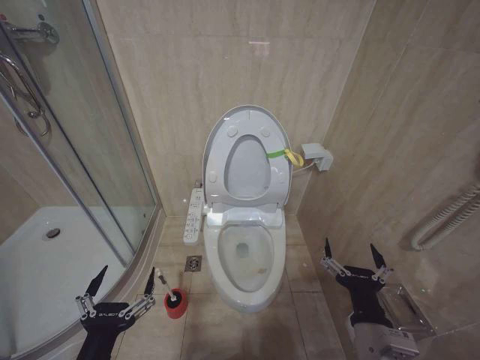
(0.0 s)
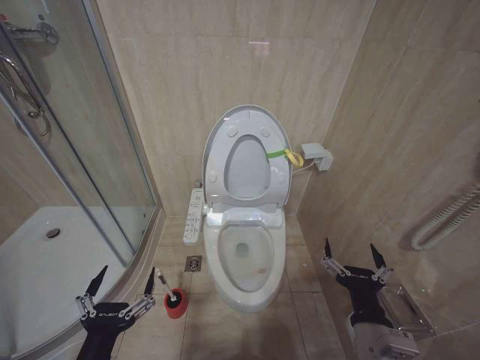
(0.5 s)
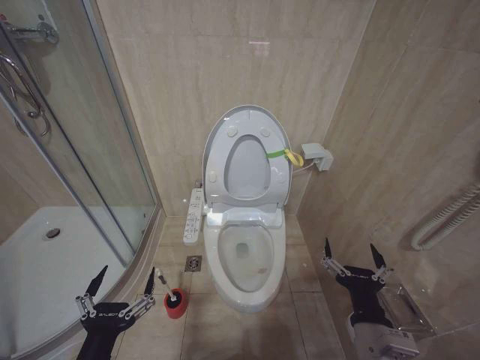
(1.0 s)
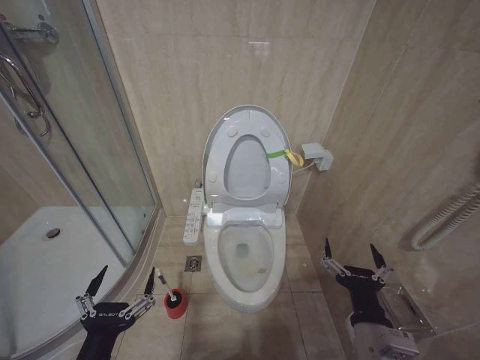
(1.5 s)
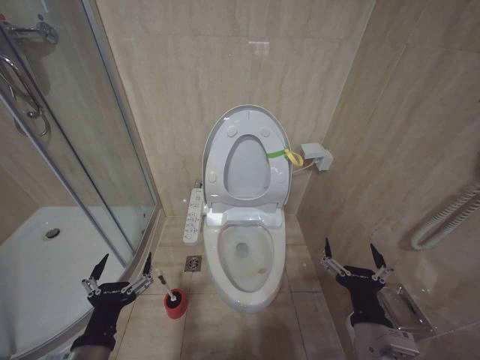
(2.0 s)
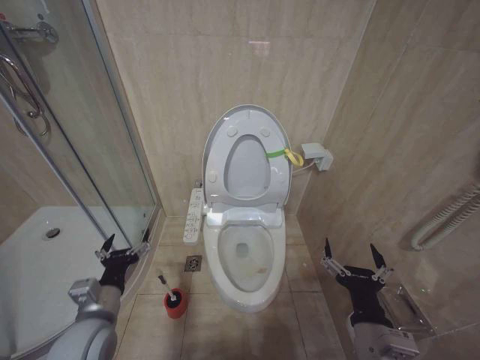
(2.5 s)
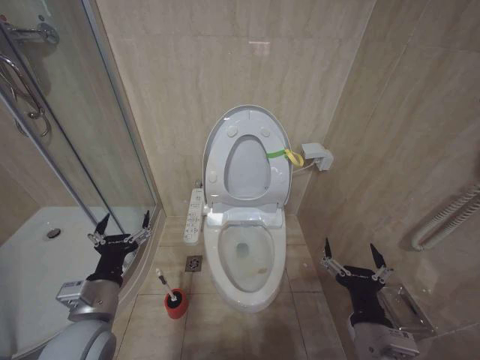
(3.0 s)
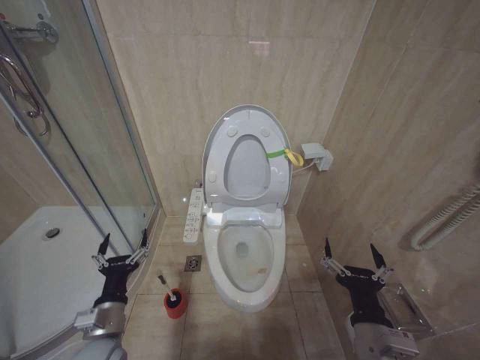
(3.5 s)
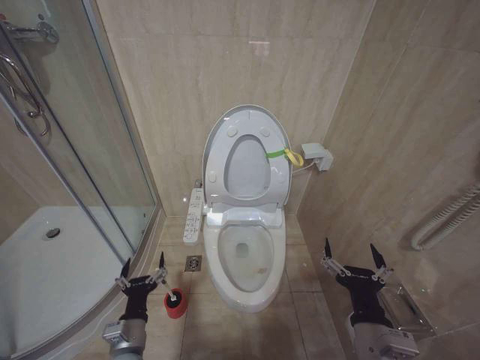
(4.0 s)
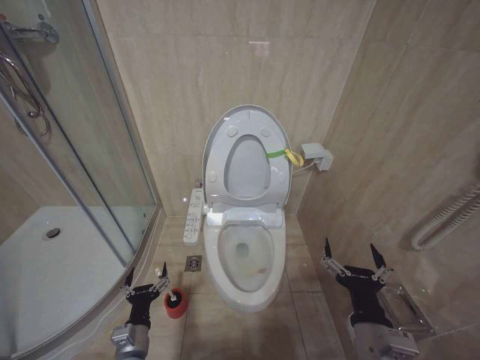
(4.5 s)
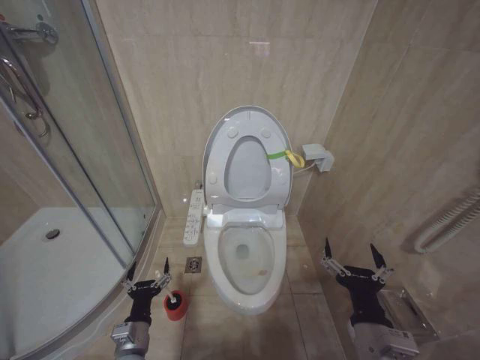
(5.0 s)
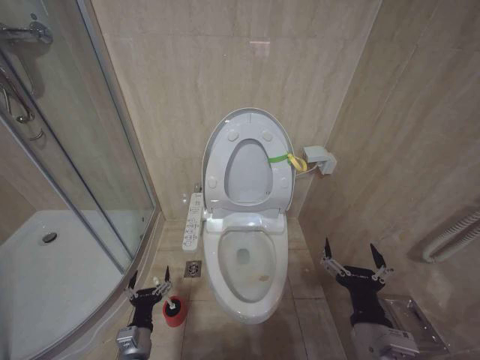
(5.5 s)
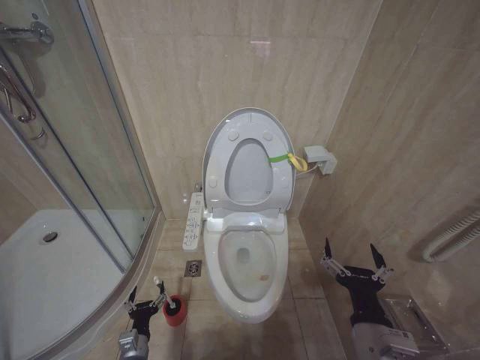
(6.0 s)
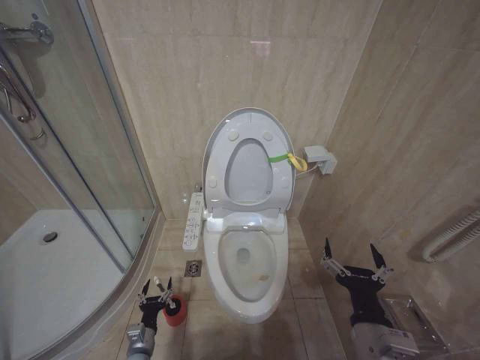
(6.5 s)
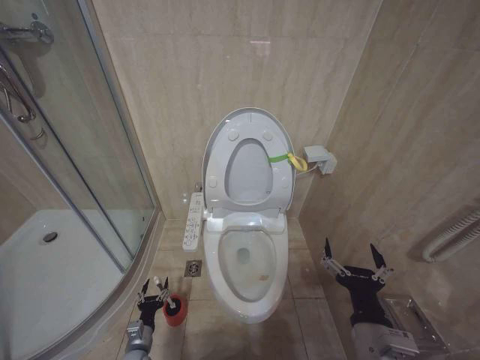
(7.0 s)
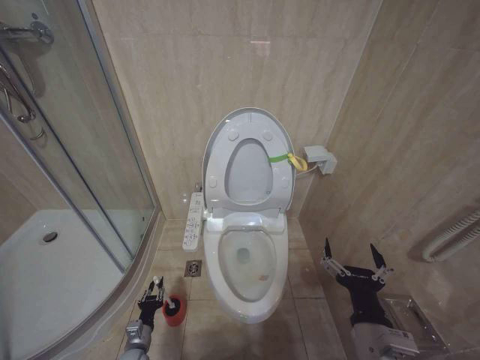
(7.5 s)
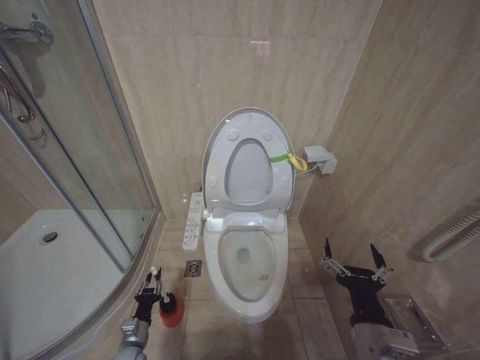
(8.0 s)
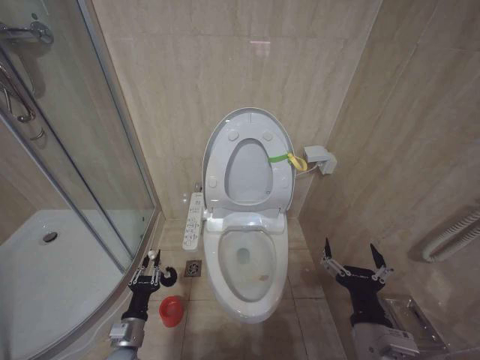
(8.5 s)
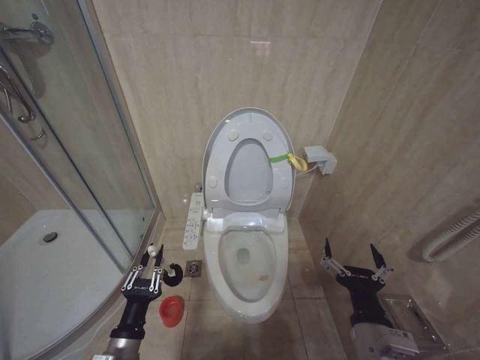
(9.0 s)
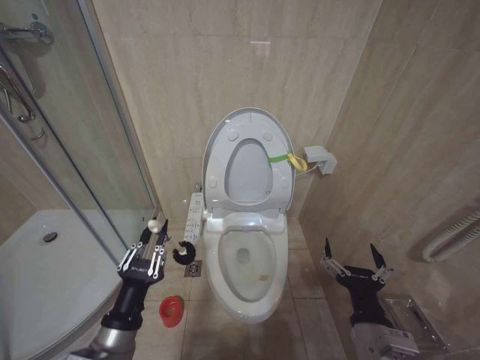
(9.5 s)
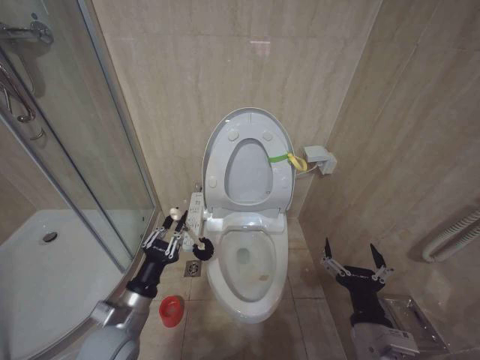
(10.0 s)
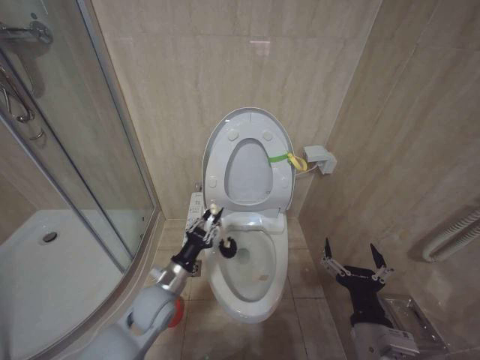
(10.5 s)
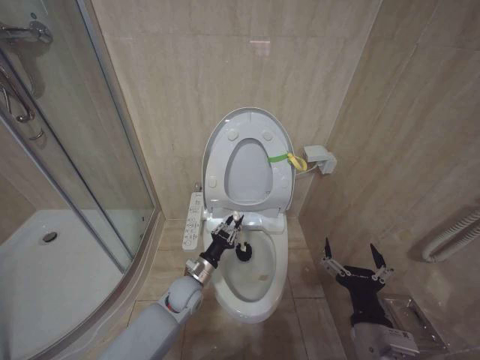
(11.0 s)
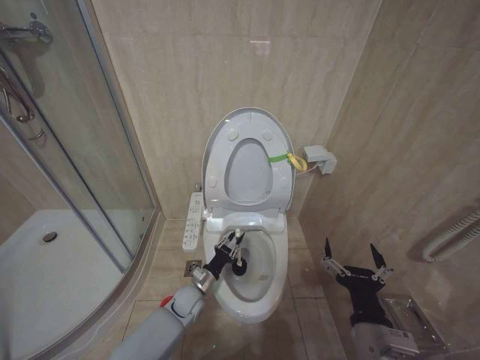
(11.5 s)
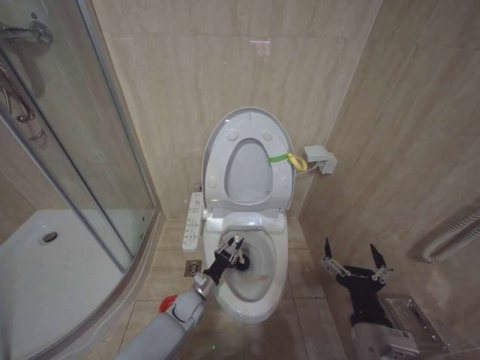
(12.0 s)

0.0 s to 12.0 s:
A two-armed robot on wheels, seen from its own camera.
Task of the whole recording: Open the toilet lid, clean the toilet bowl with a toilet brush, close the toilet lid, and flush.
0.0 to 2.0 s: The grippers move only a little.
2.0 to 4.0 s: The left gripper is displaced downward and forward by roughly 15 cm.
4.0 to 6.0 s: The left gripper travels downward by roughly 15 cm.
6.0 to 8.0 s: The left gripper changes place by some 5 cm, and closes its fingers.
8.0 to 10.0 s: The left gripper heads upward, covering about 25 cm.
10.0 to 12.0 s: The left gripper is displaced downward, forward and to the right by approximately 30 cm.

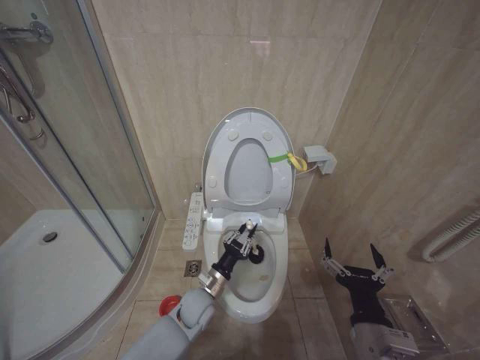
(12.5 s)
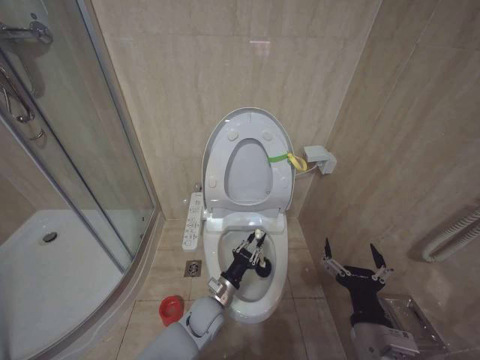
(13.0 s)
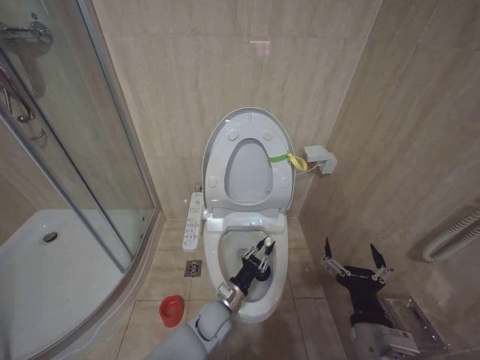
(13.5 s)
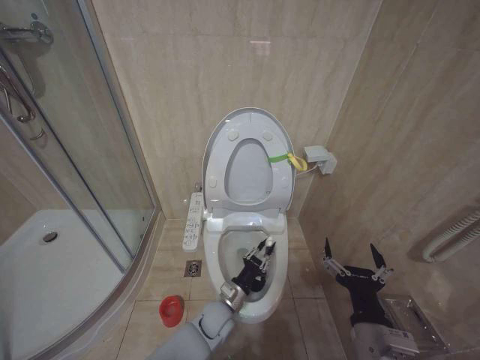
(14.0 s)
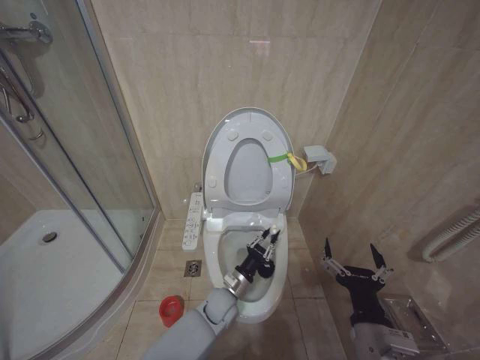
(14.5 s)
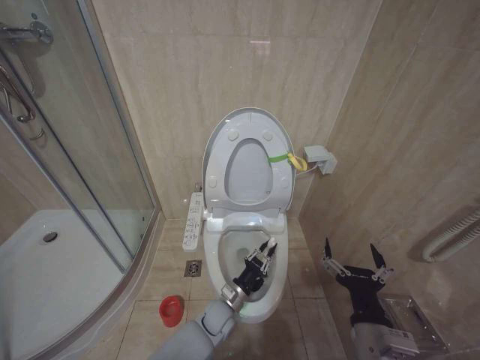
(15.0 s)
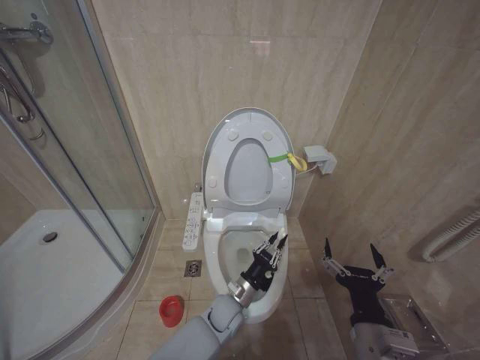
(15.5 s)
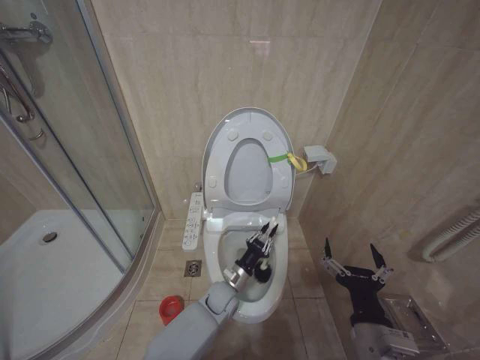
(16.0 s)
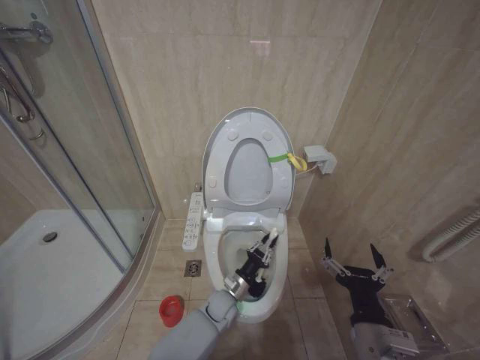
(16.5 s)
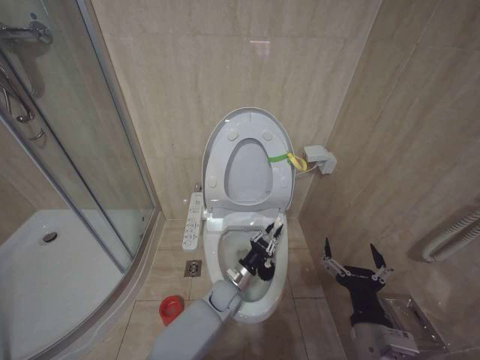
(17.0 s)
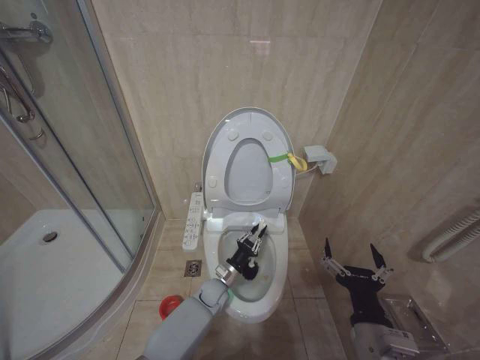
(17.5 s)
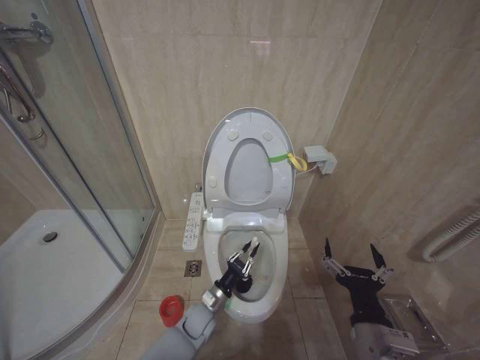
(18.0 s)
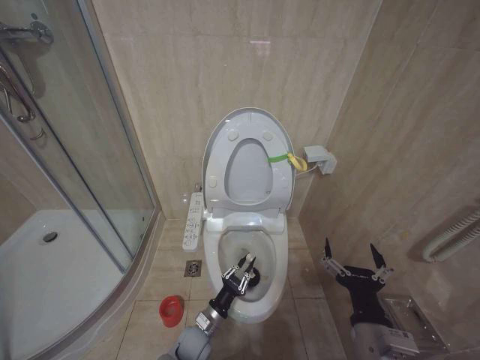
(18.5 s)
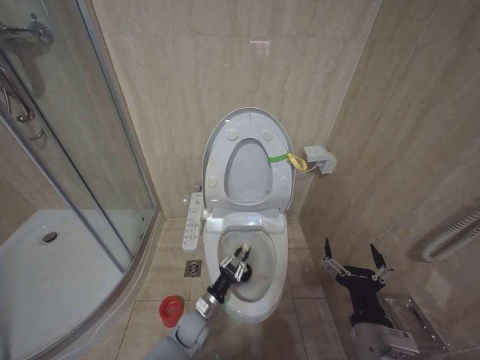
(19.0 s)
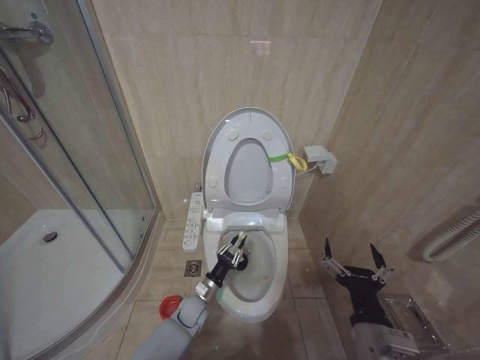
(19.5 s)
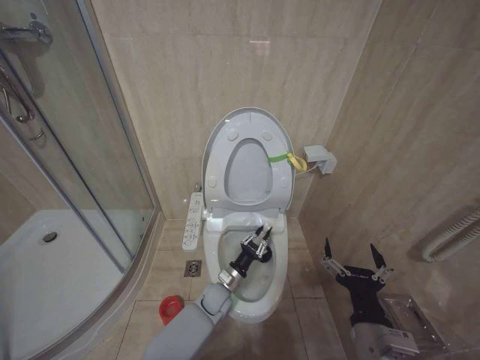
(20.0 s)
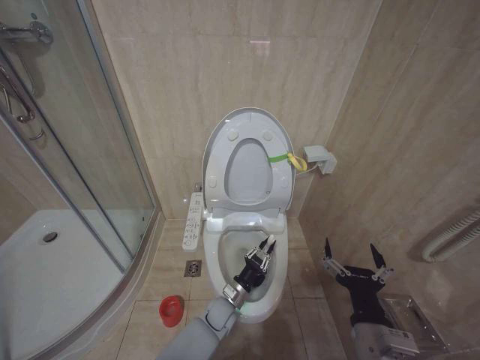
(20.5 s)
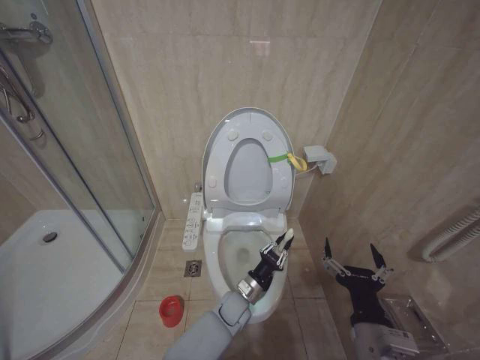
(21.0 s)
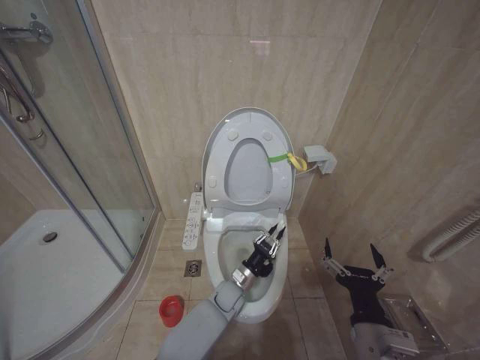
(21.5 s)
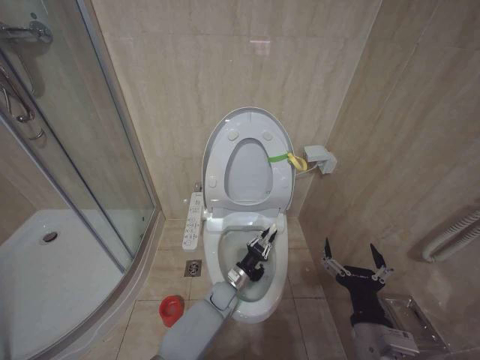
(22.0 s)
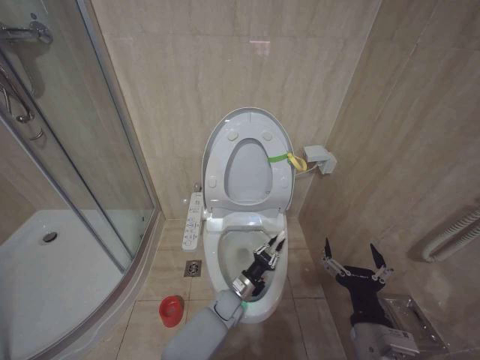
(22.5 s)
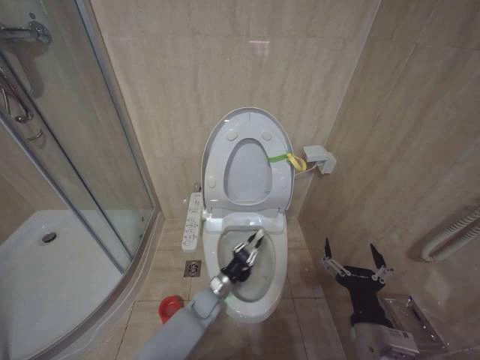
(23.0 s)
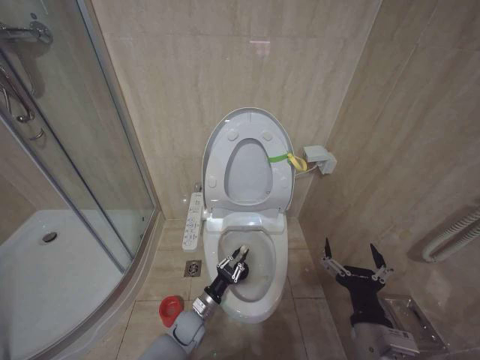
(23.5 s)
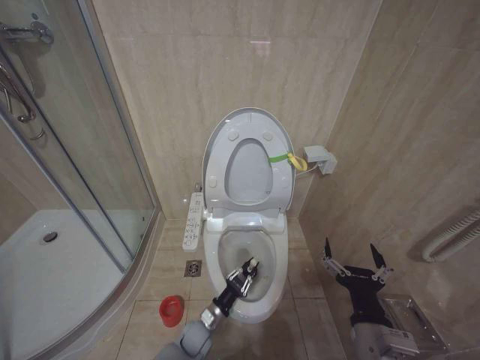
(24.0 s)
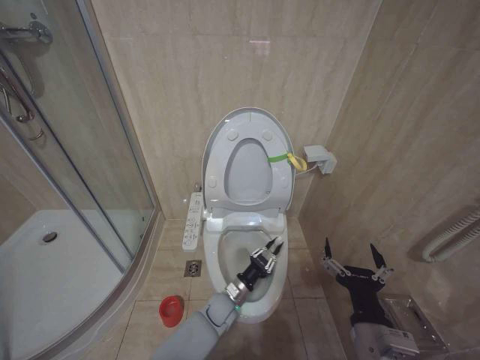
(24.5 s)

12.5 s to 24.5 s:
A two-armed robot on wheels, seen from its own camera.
Task of the whole recording: Open the toilet lid, clean the toilet bowl with a toilet brush, close the toilet lid, and flush.
12.5 to 14.5 s: The left gripper heads to the right, covering some 5 cm.
16.5 to 18.5 s: The left gripper heads to the left and backward, covering approximately 10 cm.
18.5 to 20.5 s: The left gripper shifts approximately 10 cm to the right and forward.
22.5 to 24.5 s: The left gripper moves approximately 15 cm to the left and comes back.

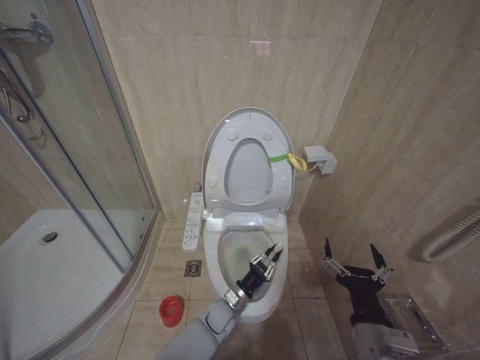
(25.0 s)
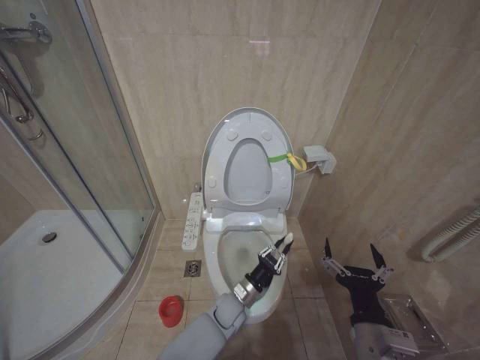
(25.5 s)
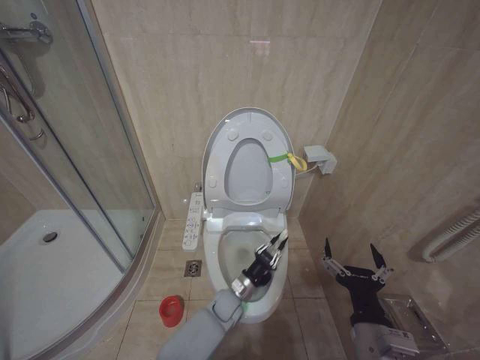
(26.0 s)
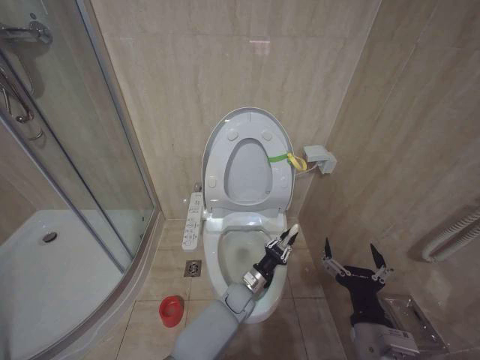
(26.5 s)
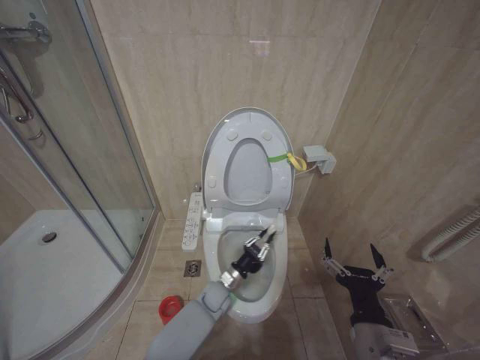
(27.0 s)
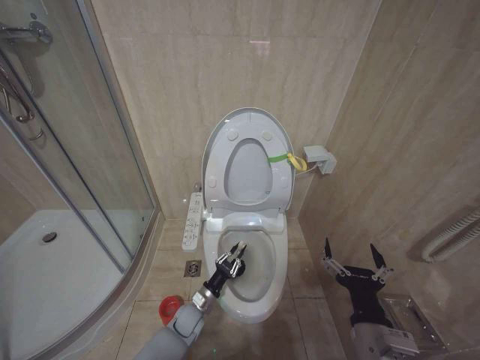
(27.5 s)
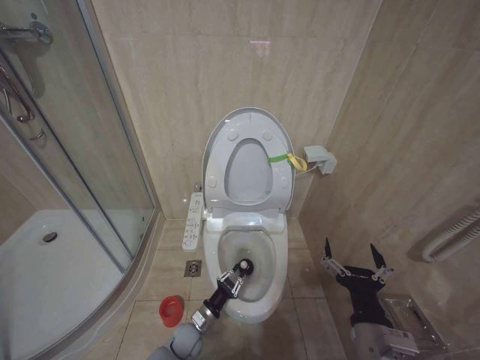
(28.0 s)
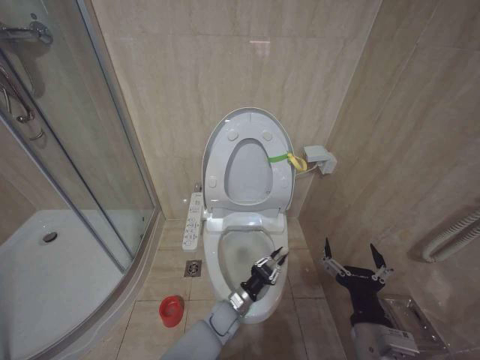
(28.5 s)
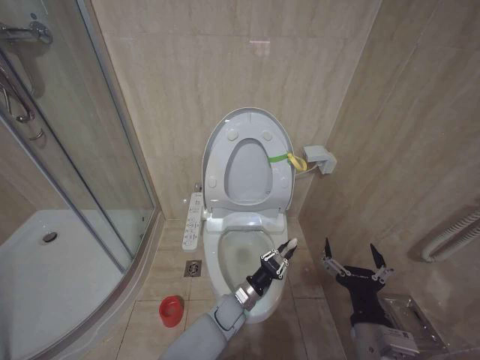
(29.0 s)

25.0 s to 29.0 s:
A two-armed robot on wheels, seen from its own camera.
Task of the whole recording: Open the toilet lid, clean the toilet bowl with a toilet brush, close the toilet lid, and flush.
25.0 to 27.0 s: The left gripper is displaced forward by approximately 5 cm.
27.0 to 29.0 s: The left gripper moves approximately 10 cm to the left and comes back.
